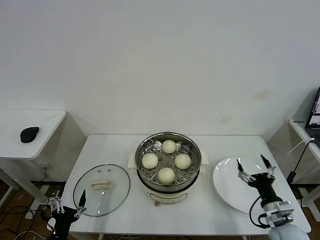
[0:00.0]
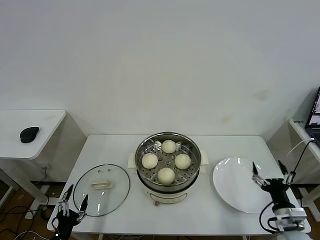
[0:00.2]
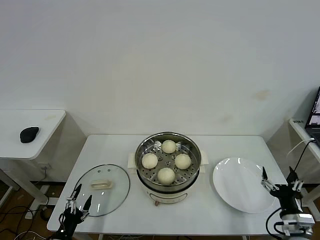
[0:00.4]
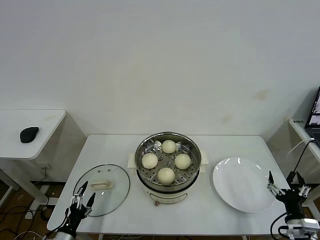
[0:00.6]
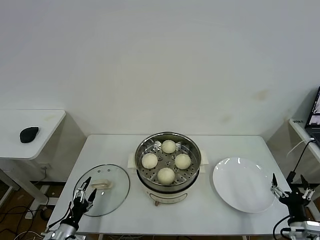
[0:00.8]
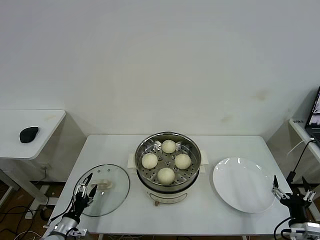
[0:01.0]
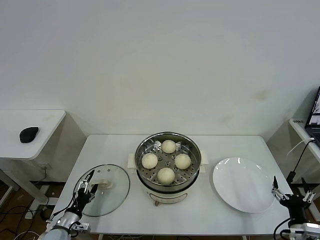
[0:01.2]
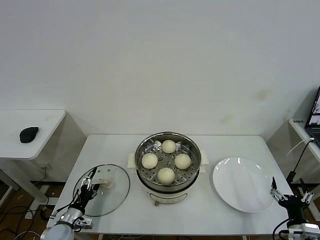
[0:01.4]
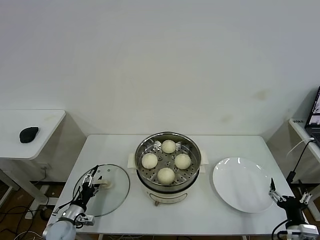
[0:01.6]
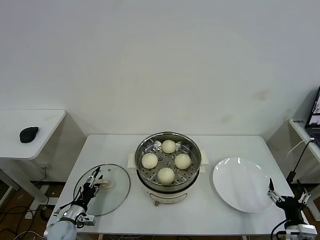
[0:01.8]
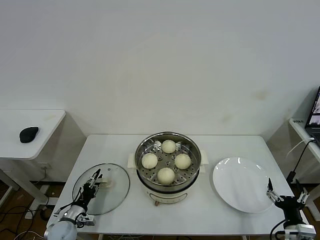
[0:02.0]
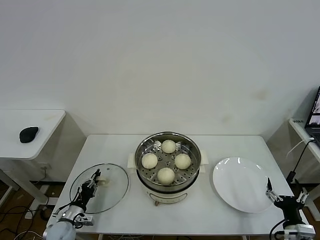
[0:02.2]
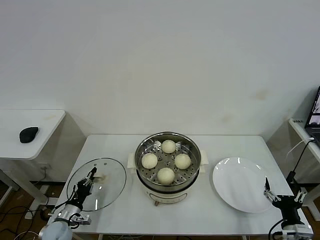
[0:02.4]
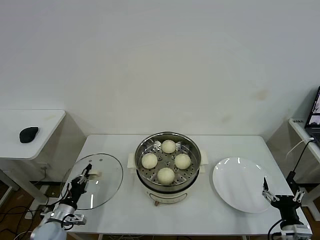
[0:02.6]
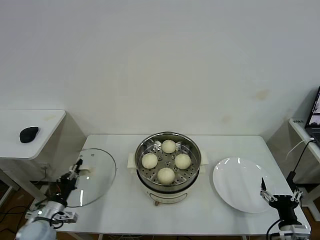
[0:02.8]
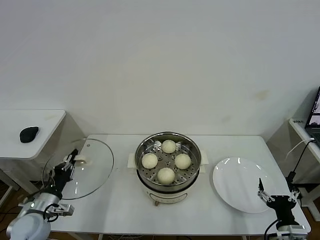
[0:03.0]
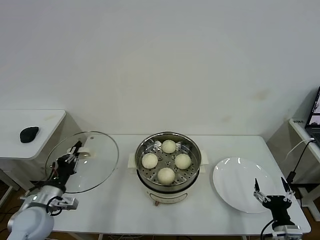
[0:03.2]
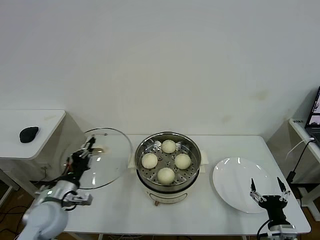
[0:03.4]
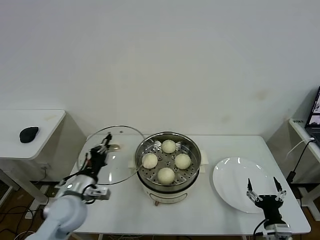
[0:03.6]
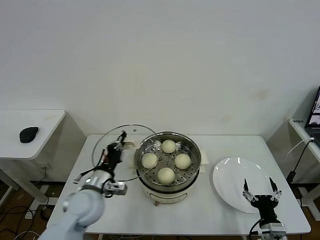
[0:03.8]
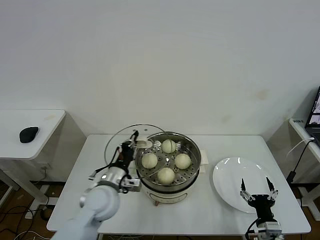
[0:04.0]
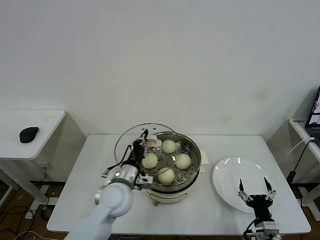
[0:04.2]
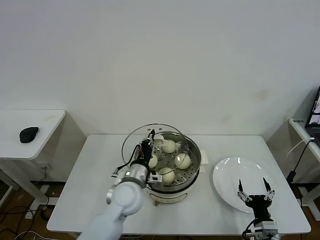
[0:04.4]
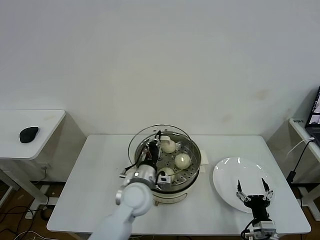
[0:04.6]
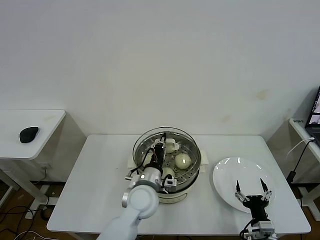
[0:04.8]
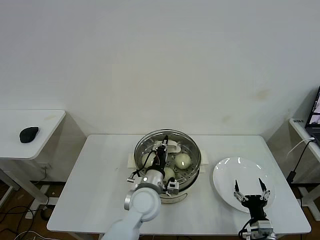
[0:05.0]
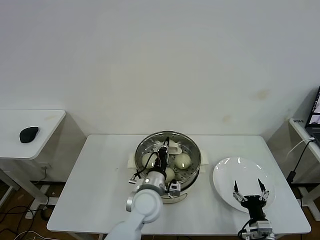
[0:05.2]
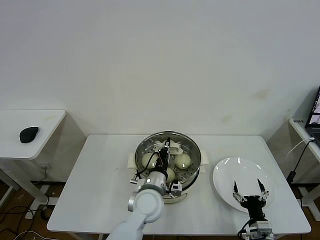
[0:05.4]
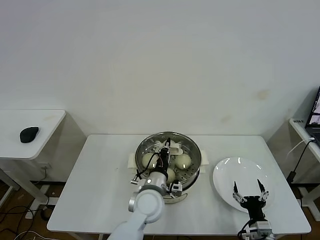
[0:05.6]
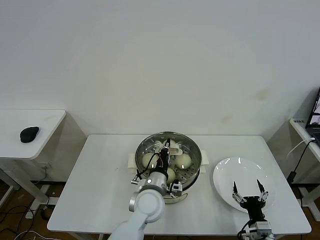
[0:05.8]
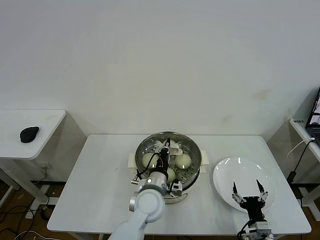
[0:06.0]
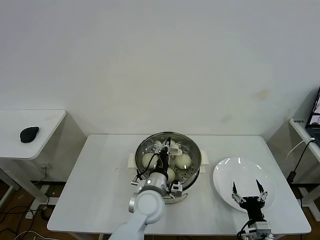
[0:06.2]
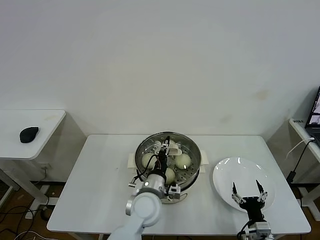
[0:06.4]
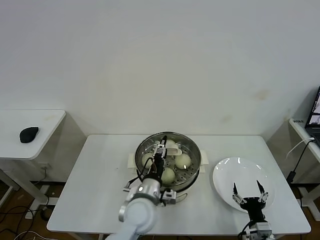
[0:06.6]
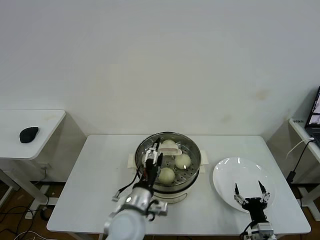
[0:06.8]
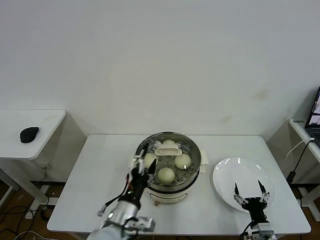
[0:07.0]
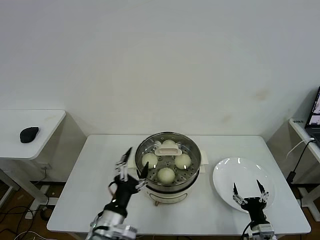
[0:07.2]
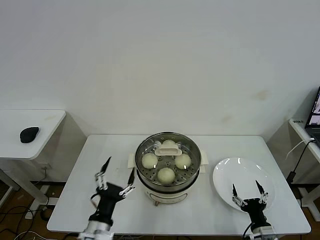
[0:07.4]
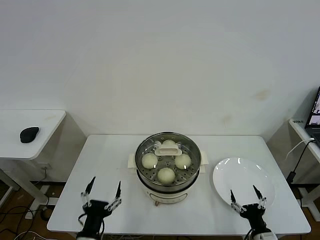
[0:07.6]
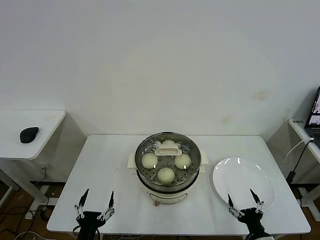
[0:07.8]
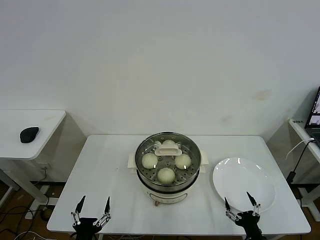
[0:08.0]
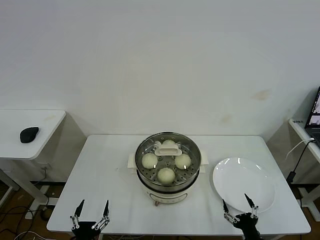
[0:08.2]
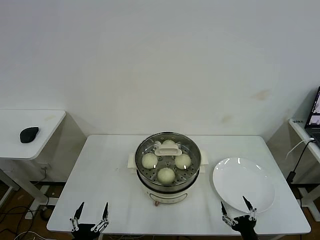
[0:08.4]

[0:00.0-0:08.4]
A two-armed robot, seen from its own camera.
Task of the whole recording: take steamed baozi put them in steamer then cover it.
Step, 0:00.0 to 0:02.6: Grasp the pot lid with left gripper.
Step, 0:02.8 to 0:06.4: Place the pot lid on the steamer with left gripper.
0:00.0 to 0:01.4: The left gripper heads forward and downward, covering roughly 15 cm; the right gripper is displaced backward by some 5 cm.
0:01.4 to 0:02.8: The left gripper shifts about 10 cm upward, and closes its fingers.
0:02.8 to 0:04.2: The right gripper moves to the left, roughly 5 cm. Meanwhile the left gripper shifts about 30 cm to the right and upward.
0:04.2 to 0:05.6: The left gripper moves to the right, some 10 cm.
0:05.6 to 0:07.0: The left gripper travels backward and to the left by about 15 cm, and opens.
0:07.0 to 0:08.4: The left gripper is displaced to the left, backward and downward by approximately 25 cm. The right gripper is displaced backward by about 5 cm.
